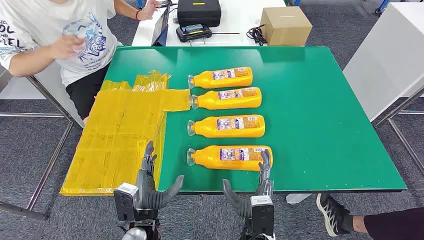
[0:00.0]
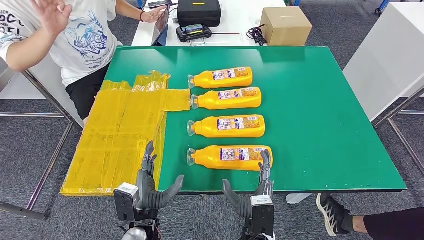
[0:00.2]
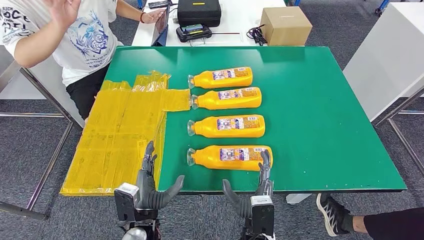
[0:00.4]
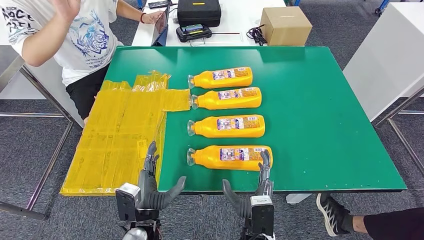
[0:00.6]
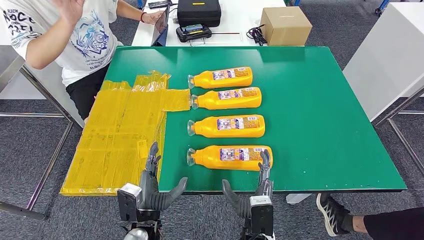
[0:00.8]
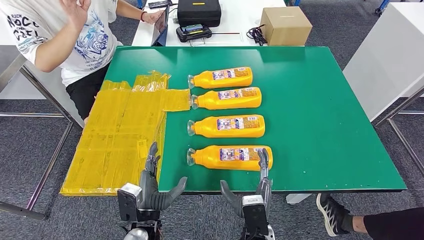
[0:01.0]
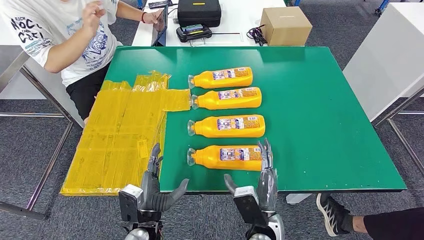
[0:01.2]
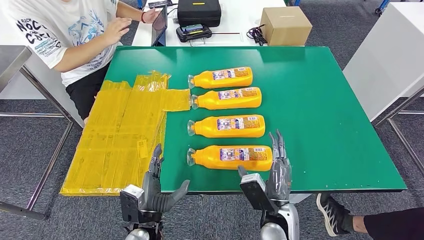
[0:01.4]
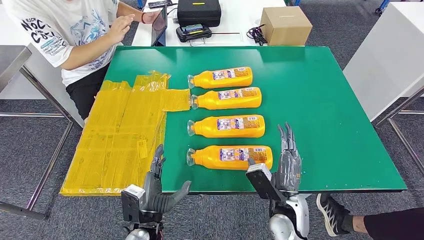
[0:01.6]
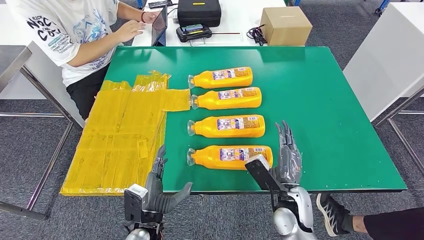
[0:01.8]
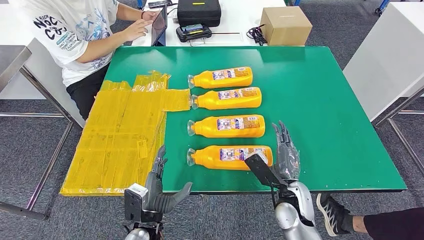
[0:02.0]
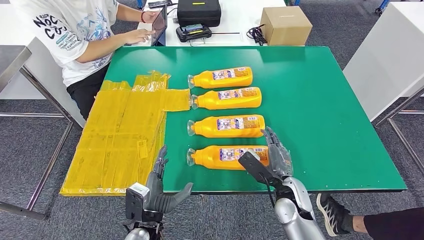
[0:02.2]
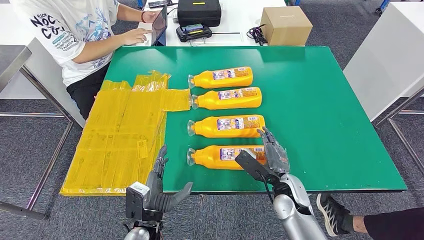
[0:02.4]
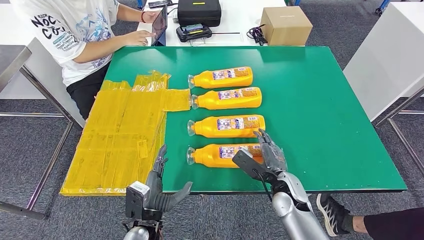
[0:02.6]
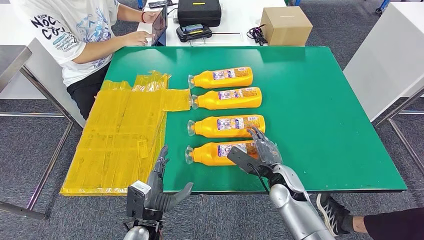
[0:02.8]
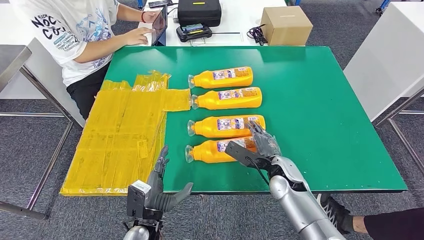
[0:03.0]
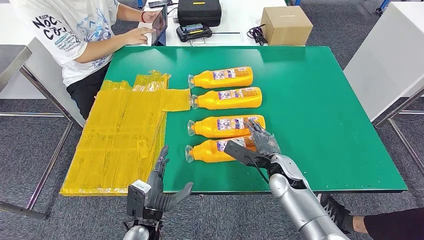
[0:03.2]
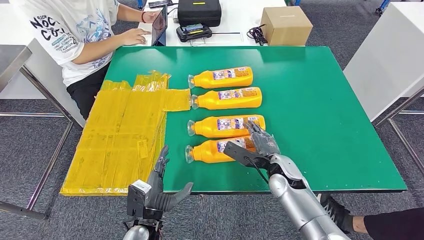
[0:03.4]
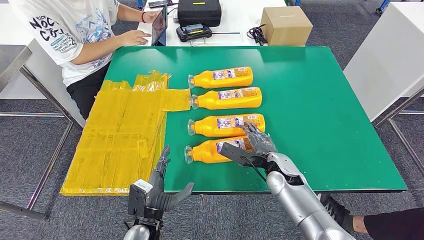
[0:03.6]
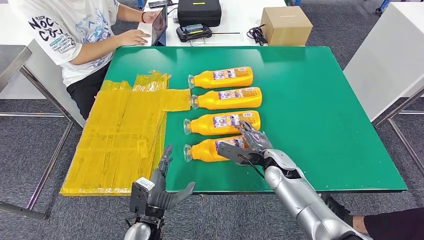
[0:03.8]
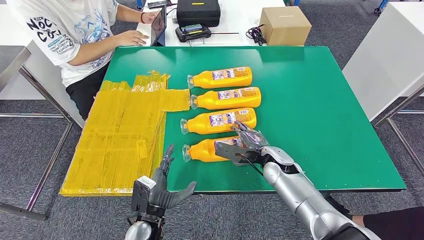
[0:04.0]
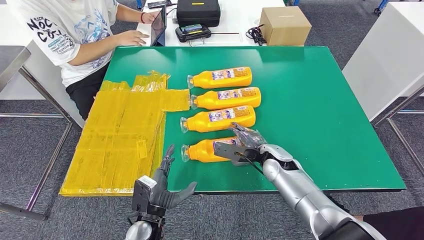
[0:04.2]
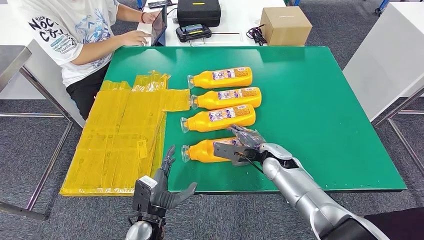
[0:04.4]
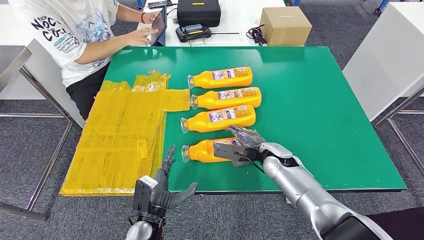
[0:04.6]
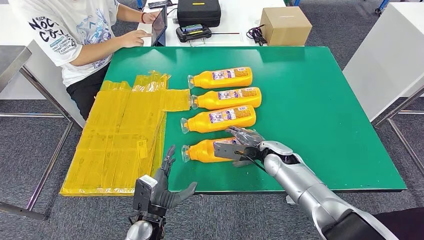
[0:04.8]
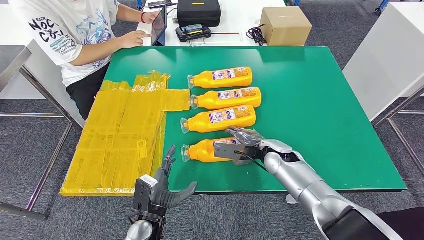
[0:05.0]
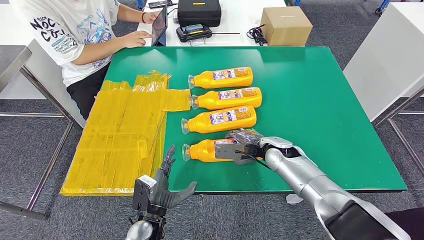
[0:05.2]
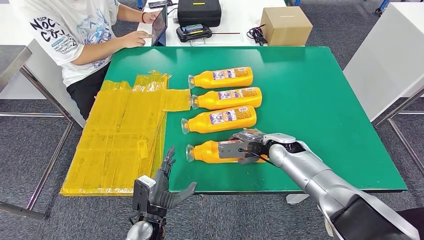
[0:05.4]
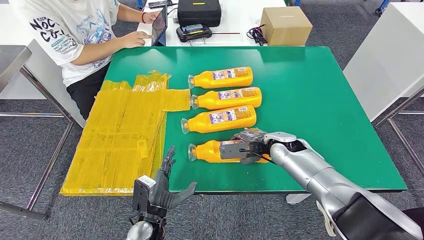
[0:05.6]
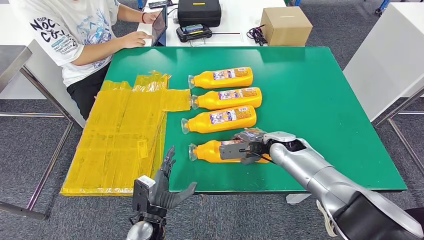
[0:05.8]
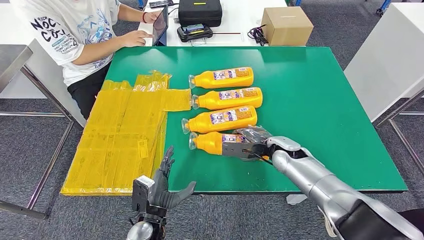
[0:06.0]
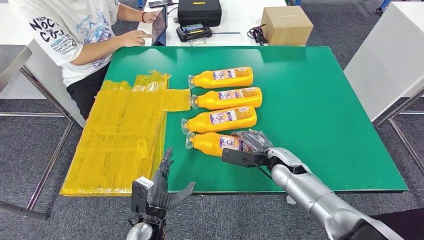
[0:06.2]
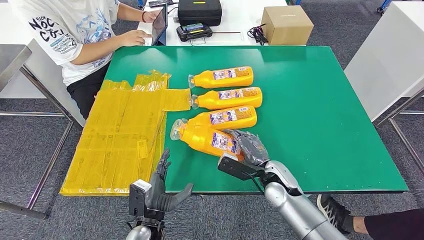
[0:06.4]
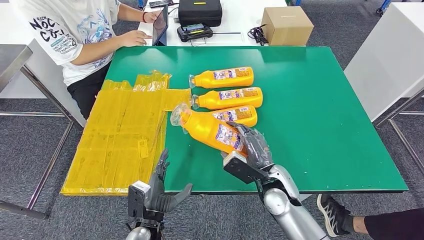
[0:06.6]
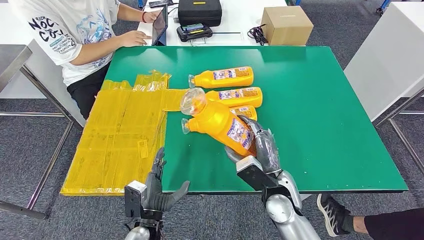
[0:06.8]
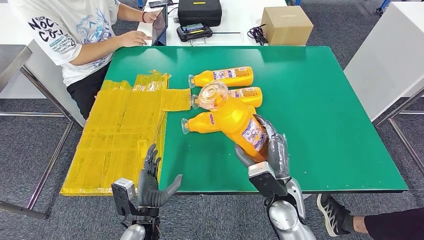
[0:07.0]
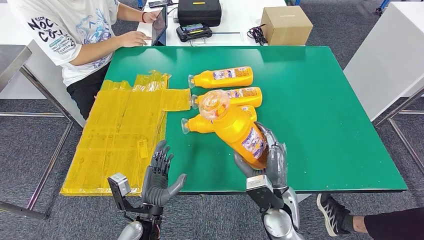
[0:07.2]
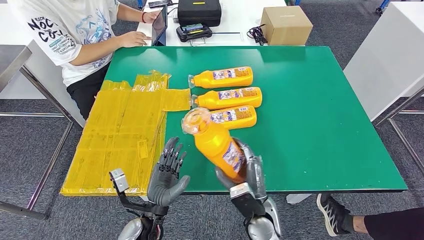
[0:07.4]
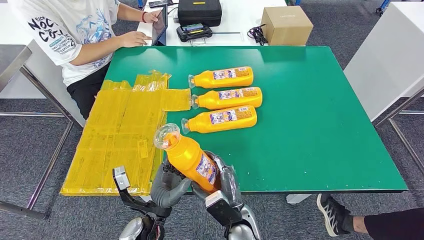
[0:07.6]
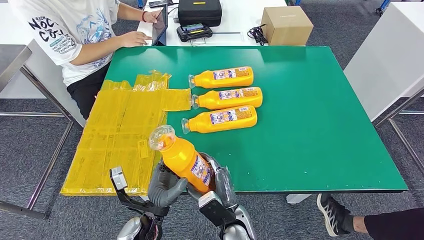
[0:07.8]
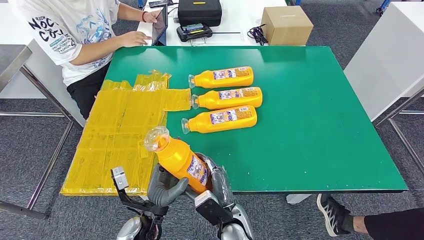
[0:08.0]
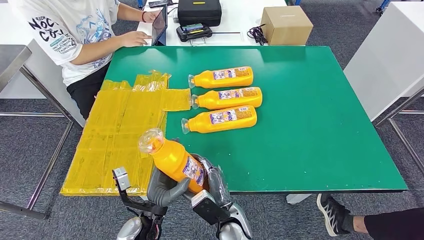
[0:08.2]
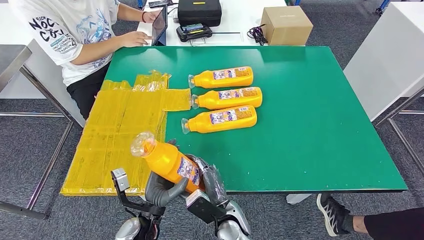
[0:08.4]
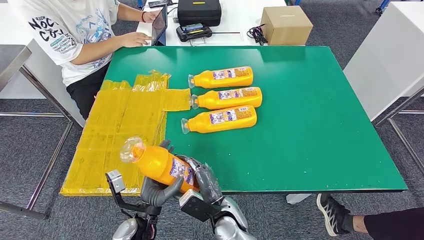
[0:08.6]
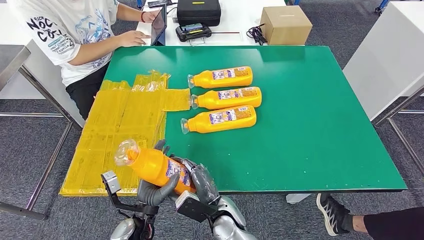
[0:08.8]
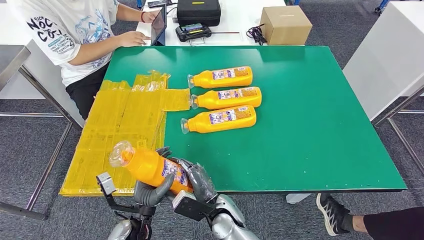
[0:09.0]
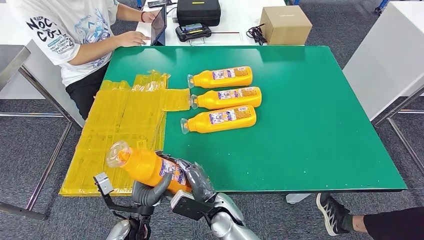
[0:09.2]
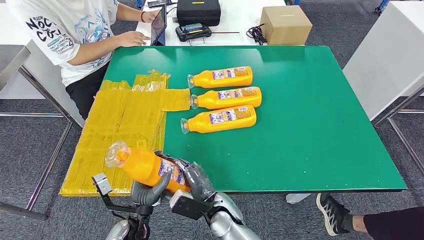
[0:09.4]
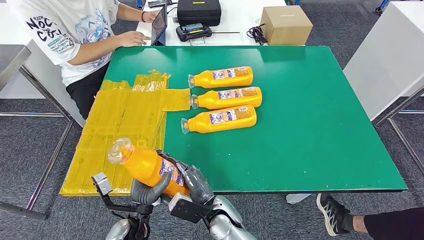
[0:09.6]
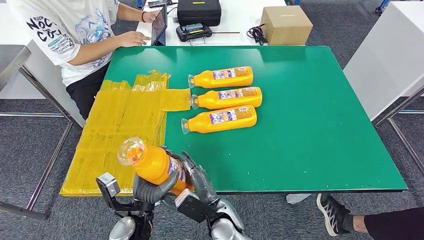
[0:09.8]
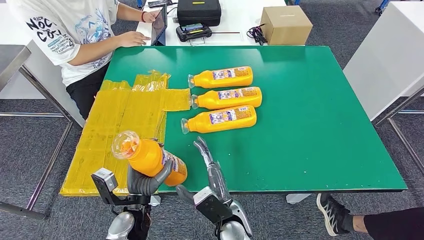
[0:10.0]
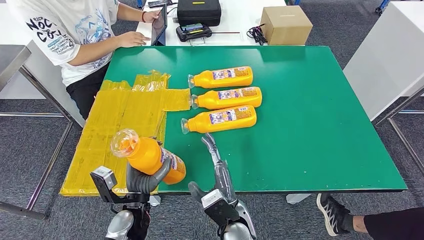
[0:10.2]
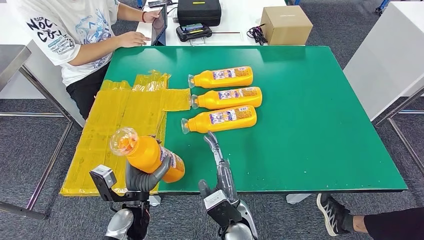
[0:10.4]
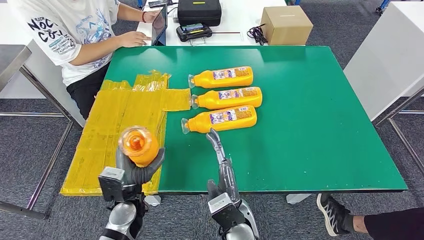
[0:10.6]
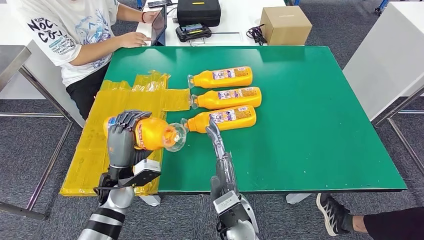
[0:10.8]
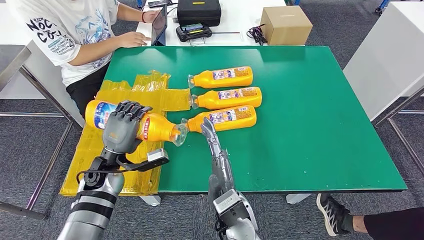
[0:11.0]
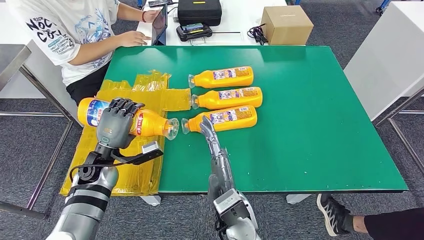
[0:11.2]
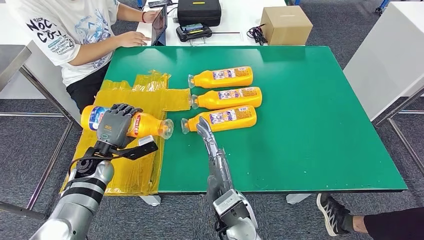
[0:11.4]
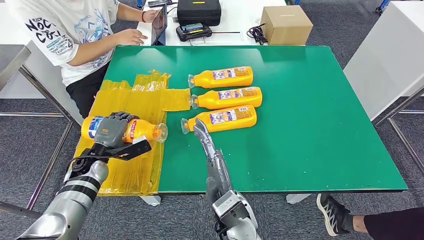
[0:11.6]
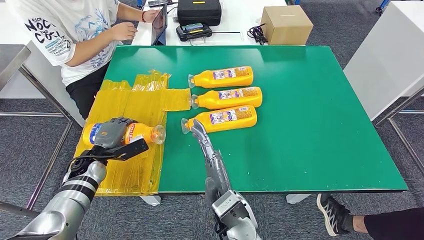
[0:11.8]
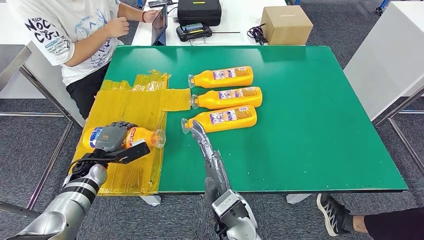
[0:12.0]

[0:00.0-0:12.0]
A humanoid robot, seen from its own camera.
Step, 0:00.0 to 0:07.6: Take the fast-moving consumer goods bottle from the table.
0:01.6 to 0:03.0: The right hand shifts roughly 10 cm forward.
0:06.0 to 0:07.6: The right hand moves backward and to the left, roughly 25 cm.
0:09.0 to 0:10.4: The right hand moves upward, approximately 5 cm.
0:10.4 to 0:12.0: The left hand goes about 20 cm to the left and forward.

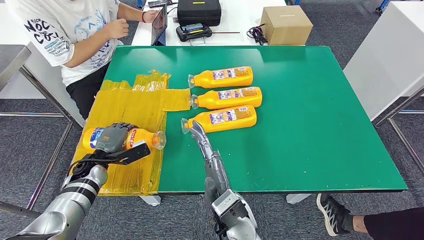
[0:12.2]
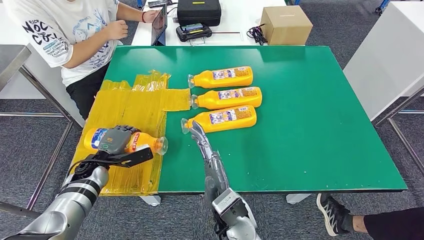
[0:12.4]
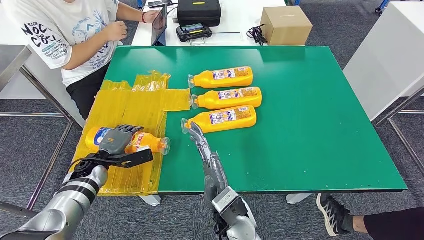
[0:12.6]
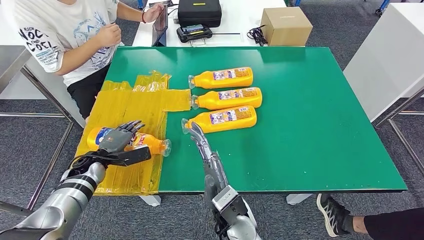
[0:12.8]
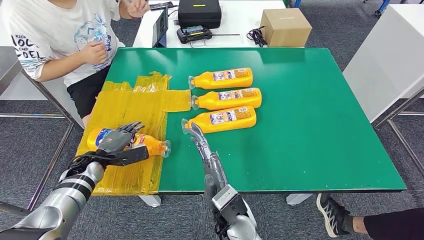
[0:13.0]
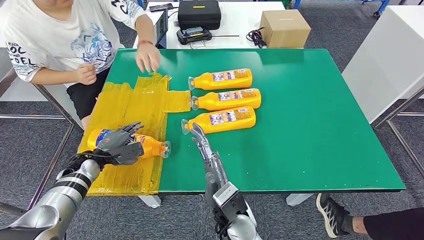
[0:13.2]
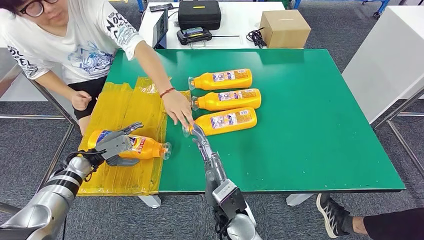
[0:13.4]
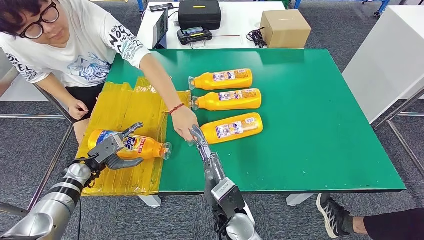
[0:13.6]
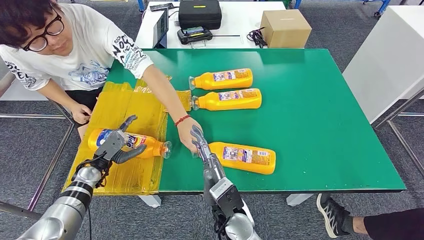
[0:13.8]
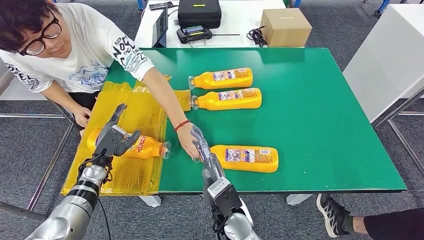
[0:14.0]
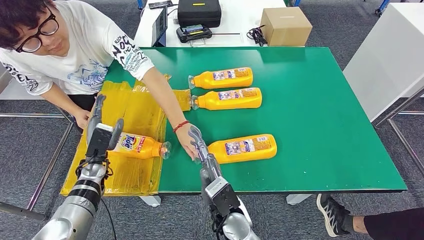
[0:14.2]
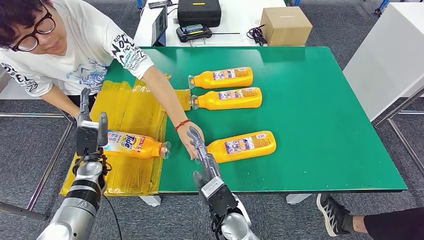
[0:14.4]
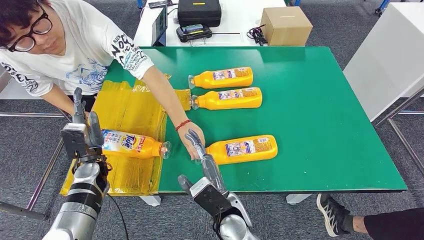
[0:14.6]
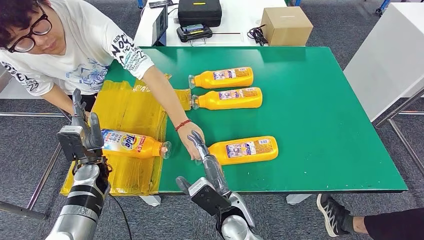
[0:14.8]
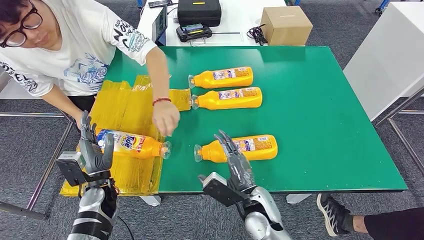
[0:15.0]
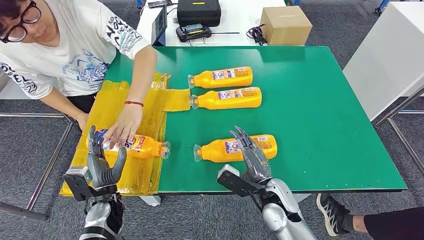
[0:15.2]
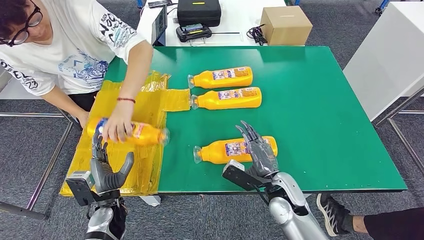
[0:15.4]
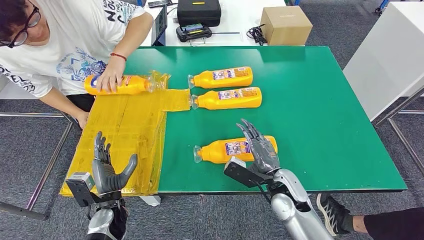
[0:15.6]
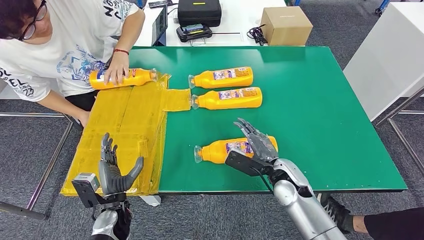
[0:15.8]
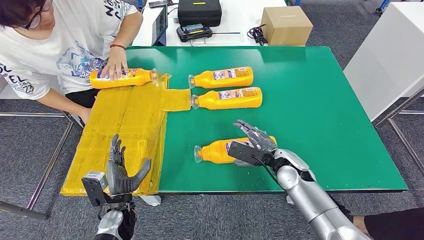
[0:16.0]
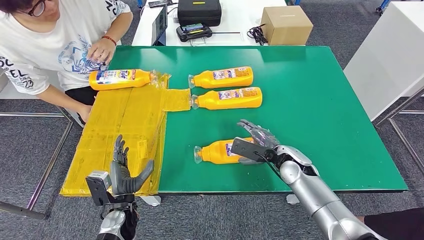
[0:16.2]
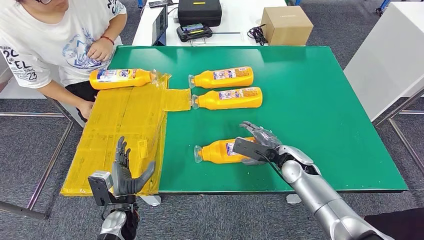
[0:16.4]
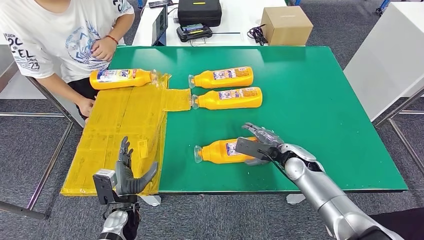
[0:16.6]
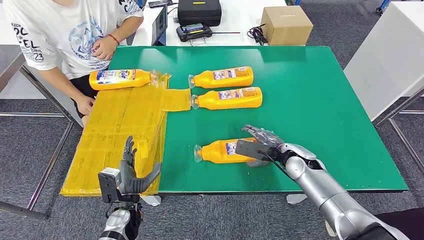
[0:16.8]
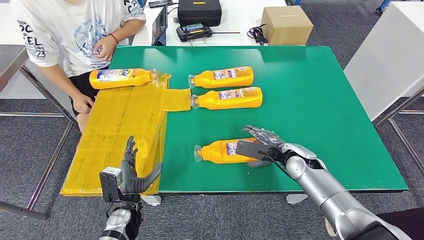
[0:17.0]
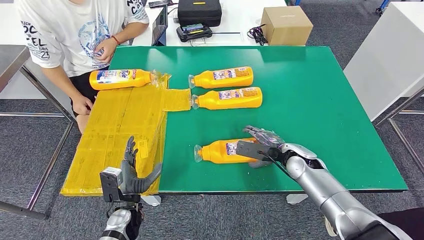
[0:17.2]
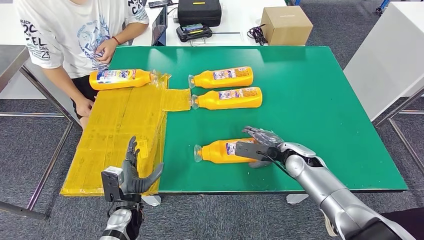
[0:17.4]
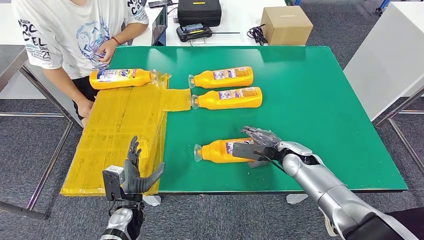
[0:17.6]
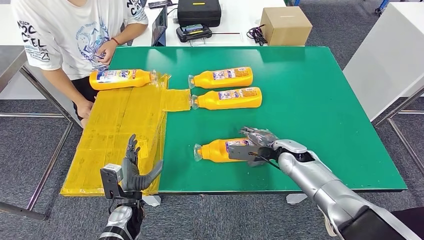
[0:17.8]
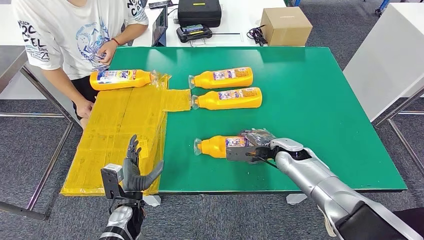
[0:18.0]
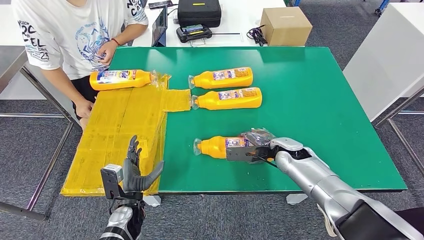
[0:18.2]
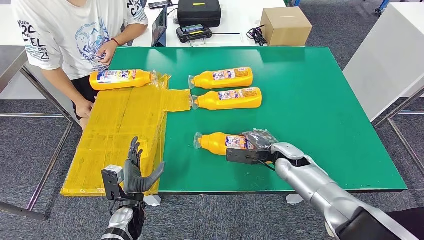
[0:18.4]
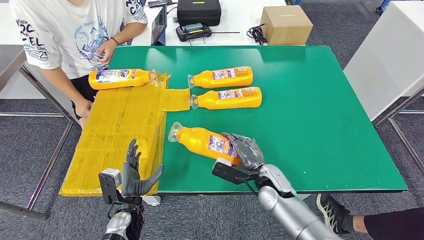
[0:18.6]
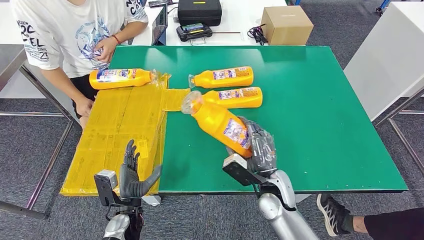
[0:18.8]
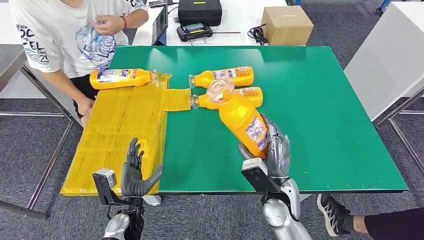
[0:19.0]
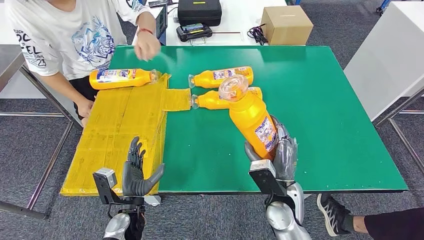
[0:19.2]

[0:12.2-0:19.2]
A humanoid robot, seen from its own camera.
Step, 0:12.2 to 0:14.6: Flip the fast-moving consumer goods bottle to the front side.
